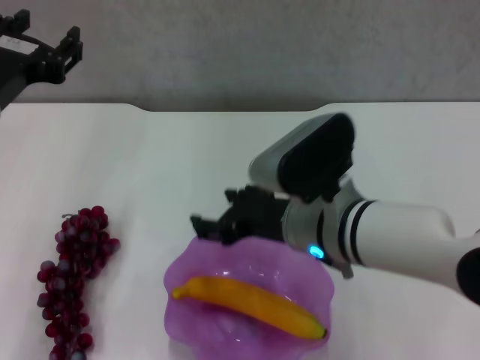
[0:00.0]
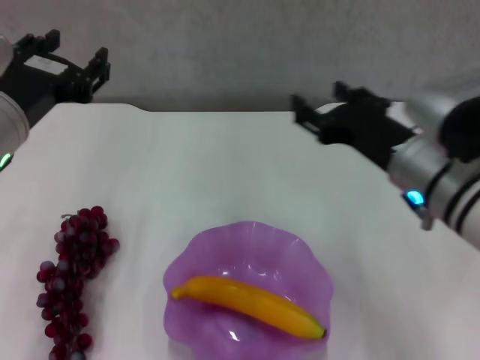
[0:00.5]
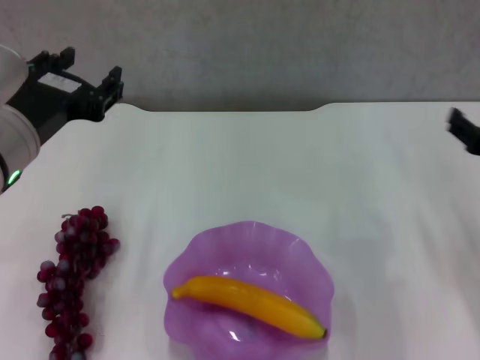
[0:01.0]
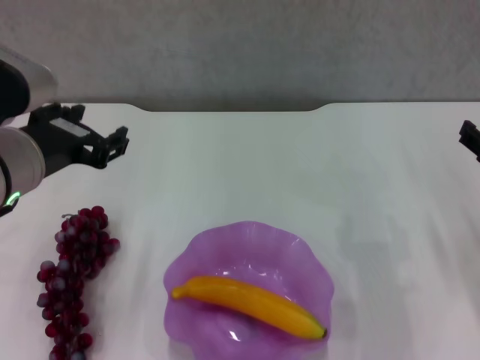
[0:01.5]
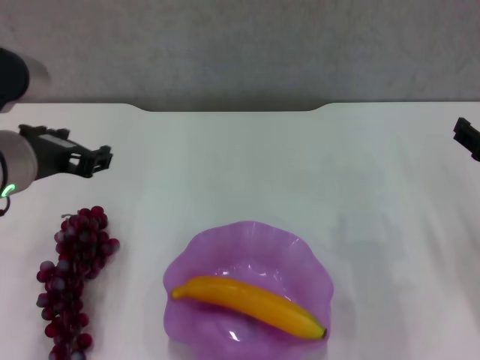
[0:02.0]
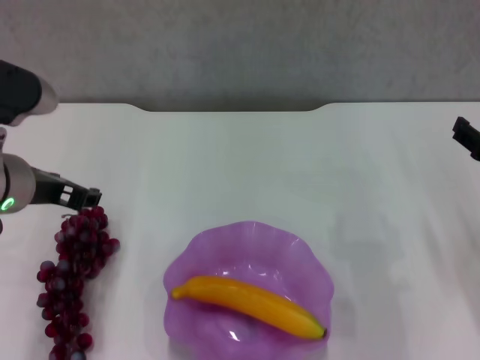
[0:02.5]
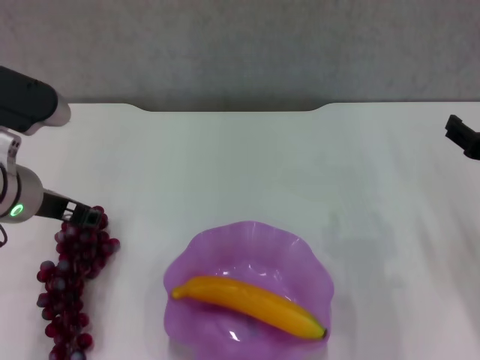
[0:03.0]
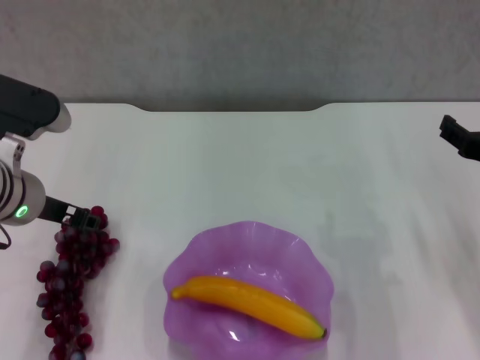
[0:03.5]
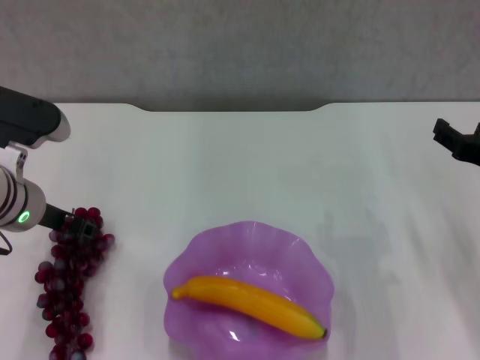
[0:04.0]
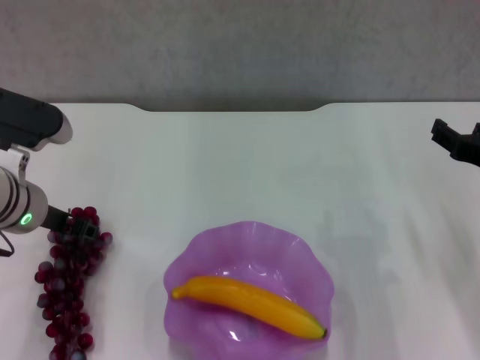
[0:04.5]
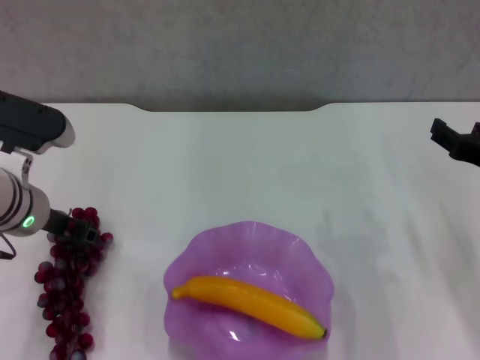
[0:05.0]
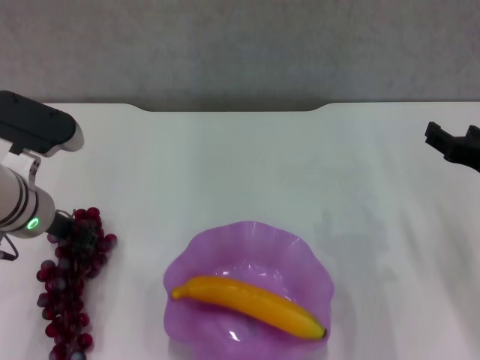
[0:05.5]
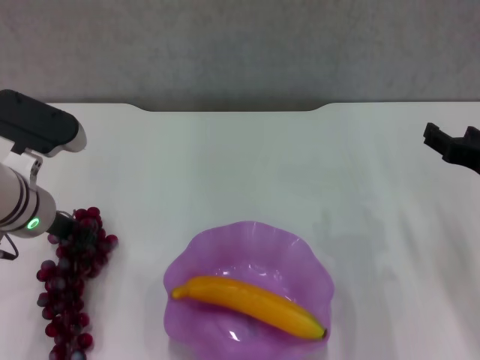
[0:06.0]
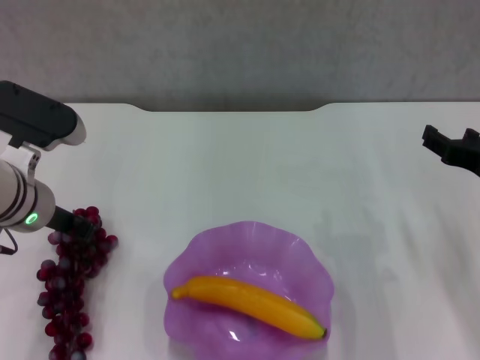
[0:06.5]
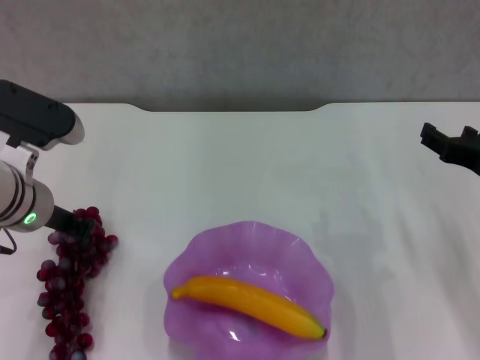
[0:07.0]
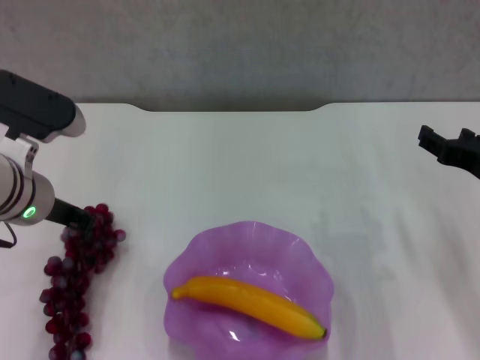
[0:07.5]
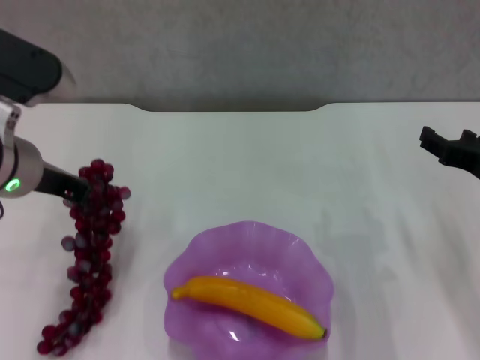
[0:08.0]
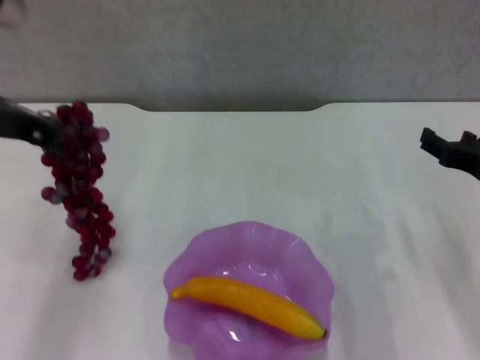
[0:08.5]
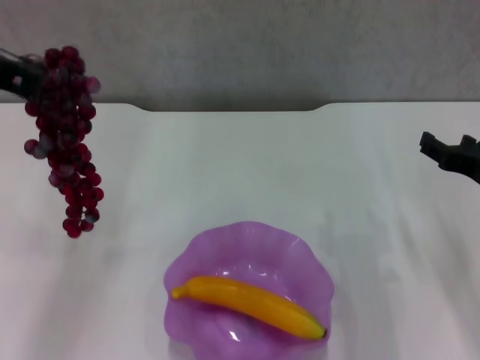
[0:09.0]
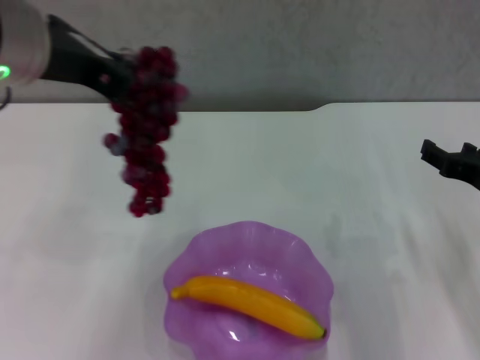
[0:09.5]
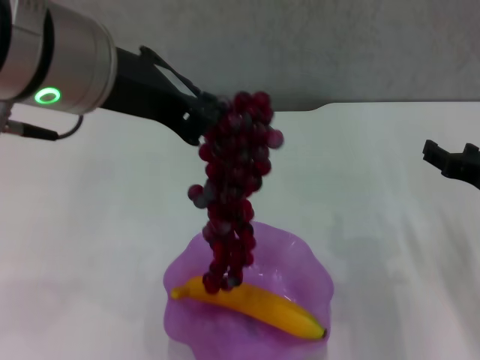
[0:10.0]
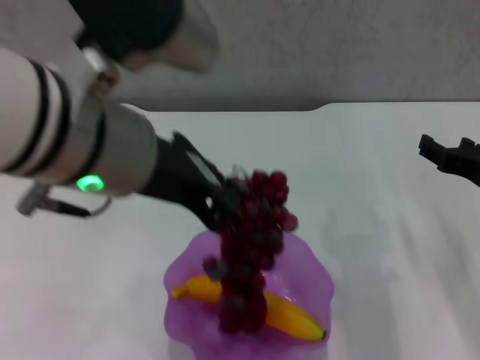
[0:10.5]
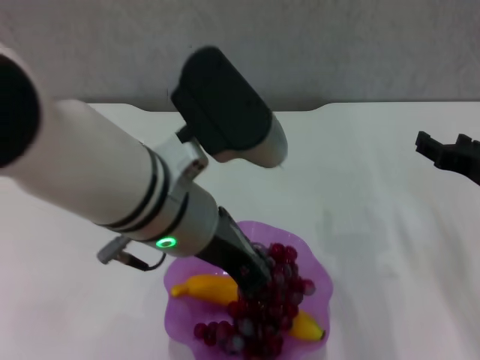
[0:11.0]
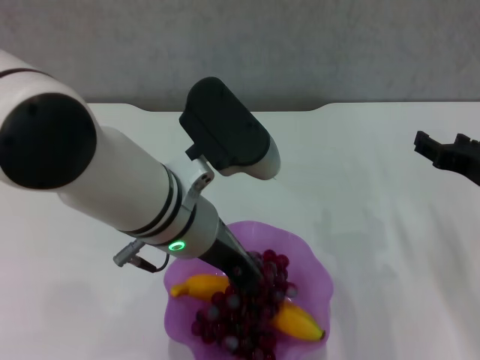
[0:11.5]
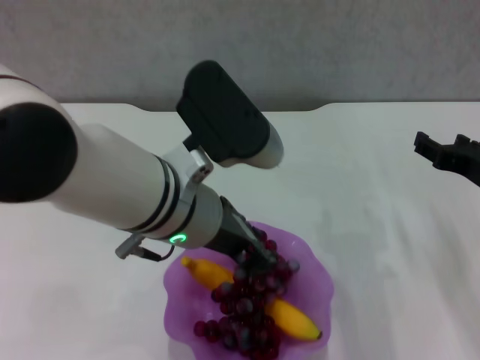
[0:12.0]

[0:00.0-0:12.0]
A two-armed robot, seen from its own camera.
Step, 0:00.0 to 0:07.0: Grasp the grape with left gripper.
0:00.0 to 0:02.0: The right gripper travels to the right by about 20 cm.
0:02.0 to 0:04.0: The left gripper travels downward by approximately 5 cm.
0:04.0 to 0:06.0: There are only small adjustments of the grippers.
0:06.0 to 0:08.0: The left gripper is displaced upward by some 10 cm, and closes up.
0:08.0 to 0:10.0: The left gripper shifts some 15 cm upward, to the right and backward.
0:10.0 to 0:12.0: The left gripper travels downward and to the right by approximately 15 cm.

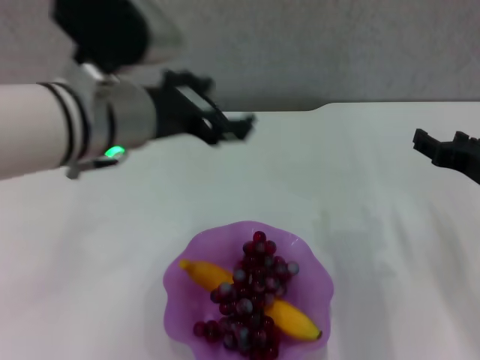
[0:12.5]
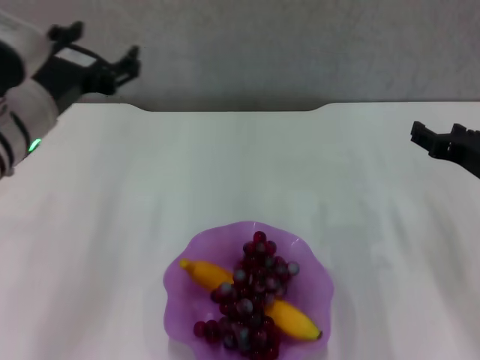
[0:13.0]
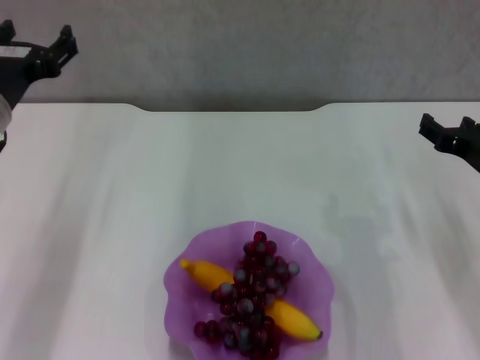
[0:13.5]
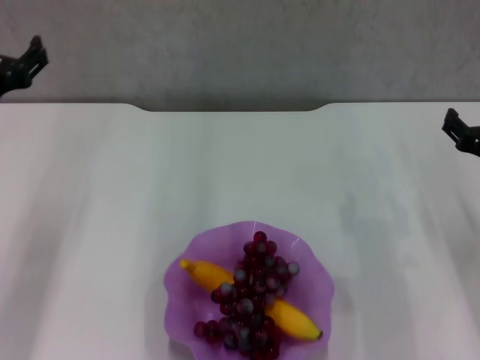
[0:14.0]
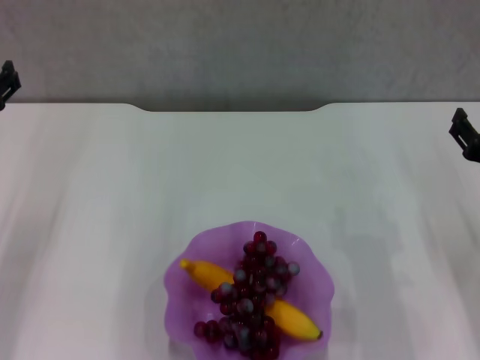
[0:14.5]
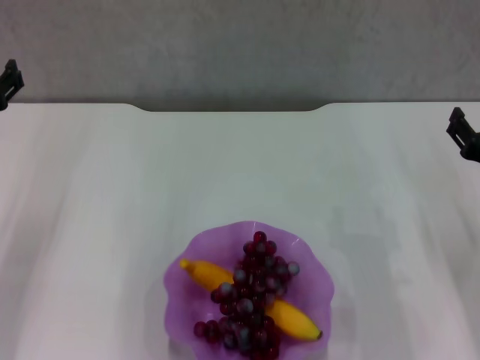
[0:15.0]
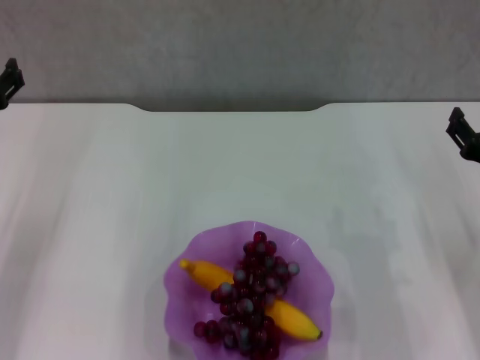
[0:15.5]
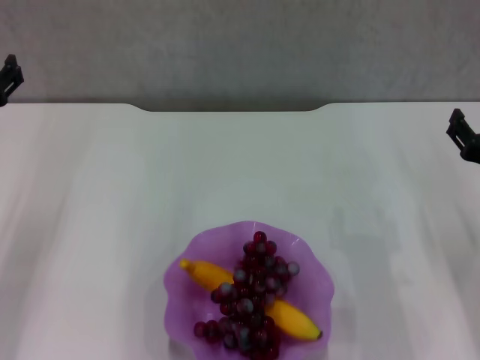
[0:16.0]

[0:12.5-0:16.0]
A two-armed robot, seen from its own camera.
0:12.5 to 0:14.5: The left gripper is displaced to the left and downward by roughly 20 cm.
0:14.5 to 0:16.0: The two grippers keep their place.
